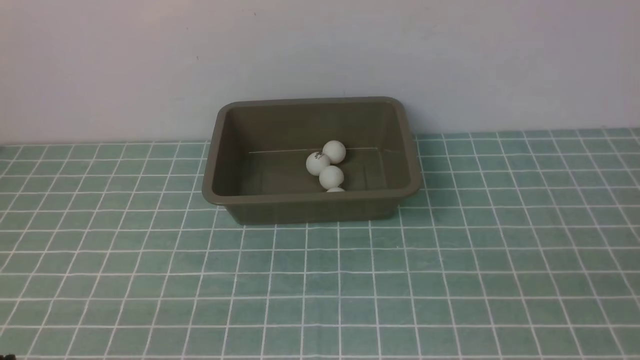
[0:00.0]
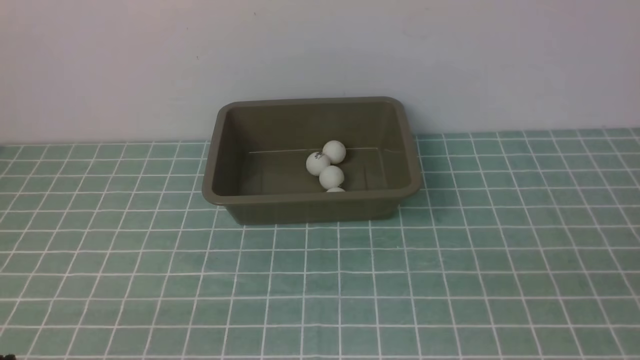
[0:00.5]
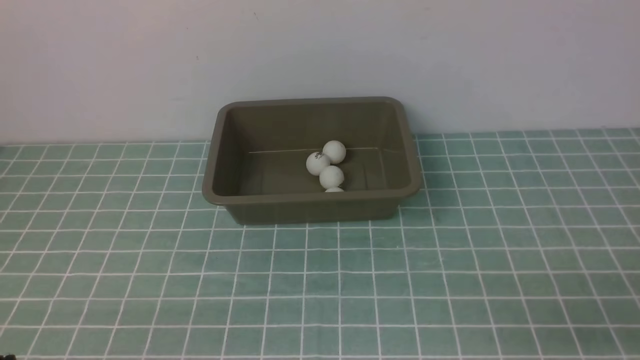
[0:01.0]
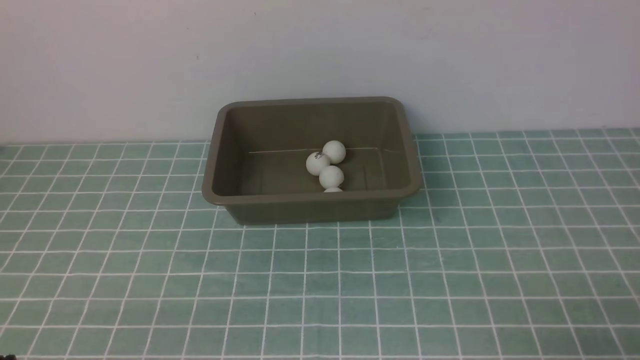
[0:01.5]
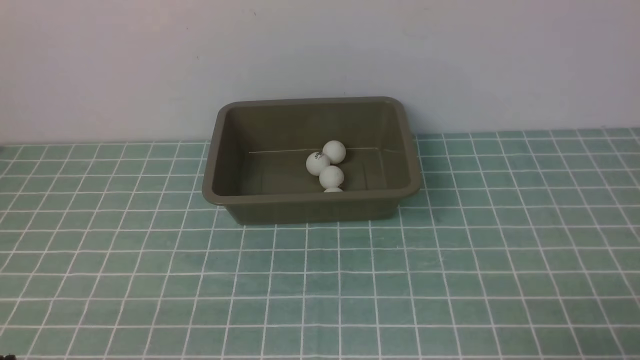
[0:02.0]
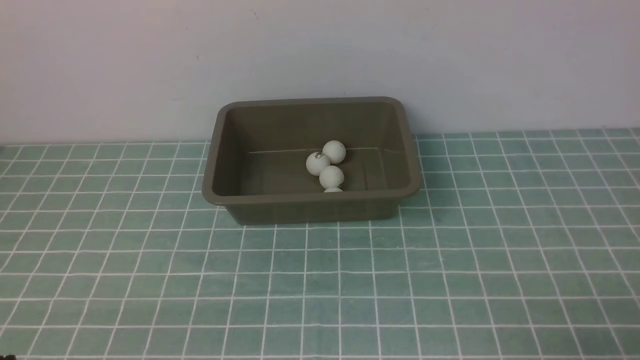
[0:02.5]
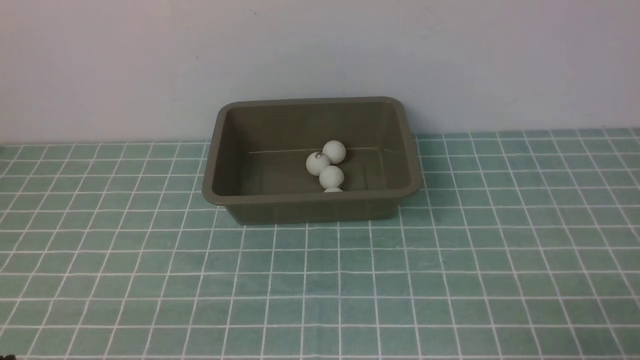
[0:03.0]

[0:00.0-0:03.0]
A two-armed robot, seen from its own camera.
0:01.5 to 0:03.0: Both grippers stay put.

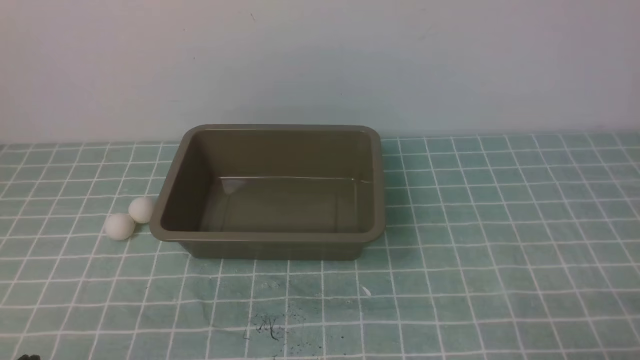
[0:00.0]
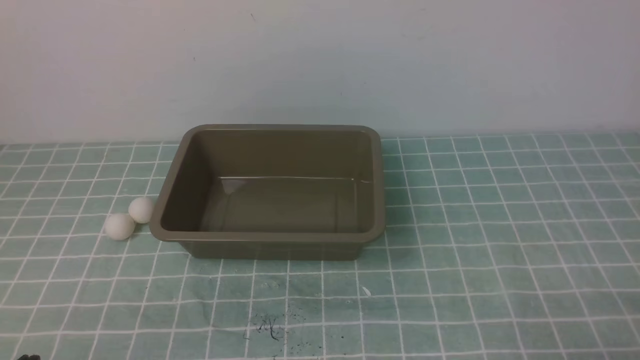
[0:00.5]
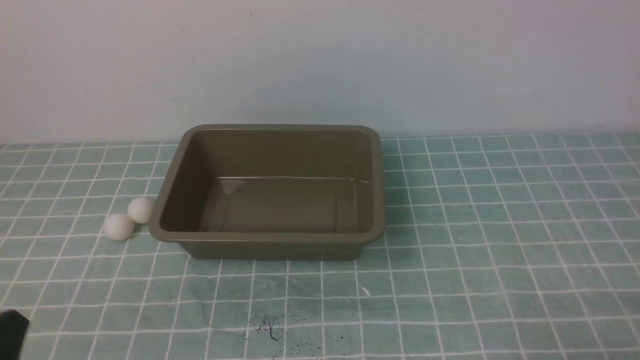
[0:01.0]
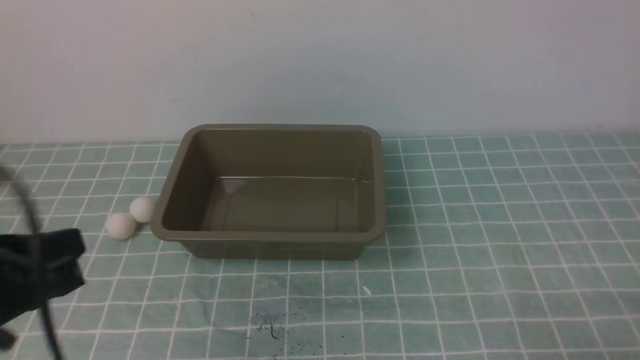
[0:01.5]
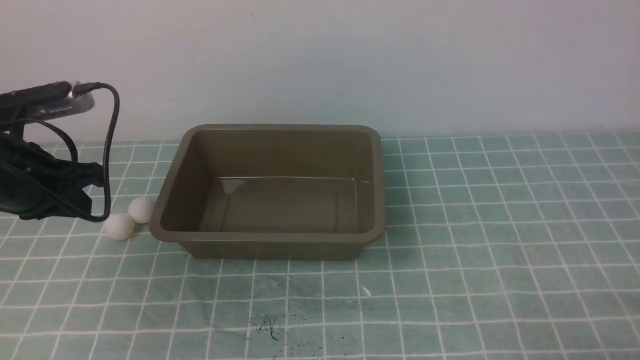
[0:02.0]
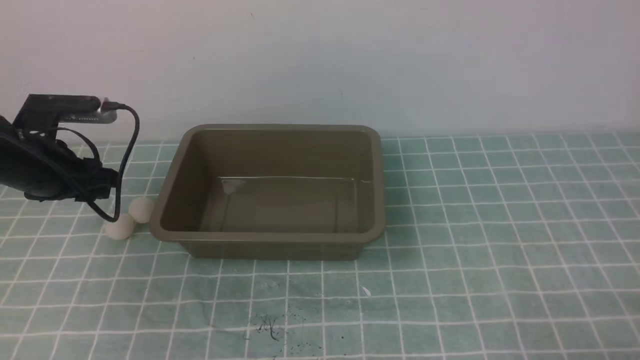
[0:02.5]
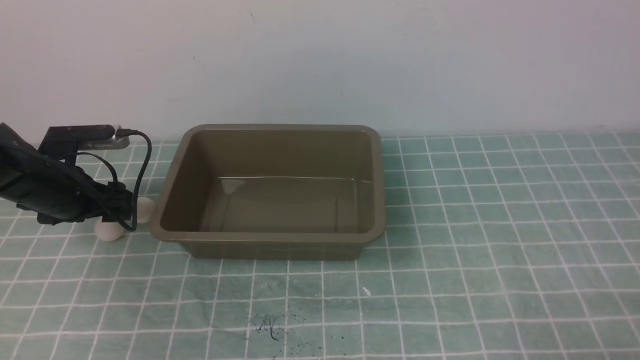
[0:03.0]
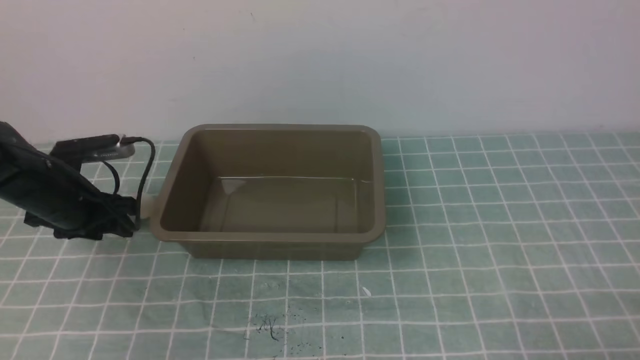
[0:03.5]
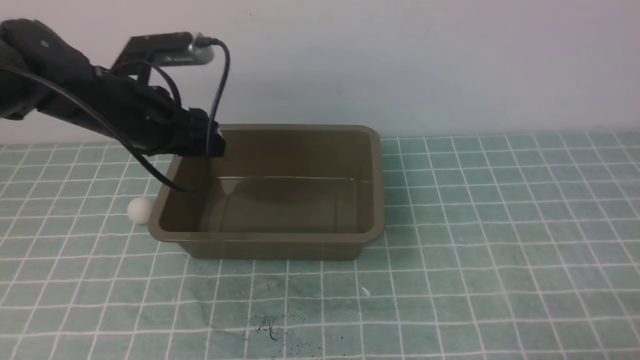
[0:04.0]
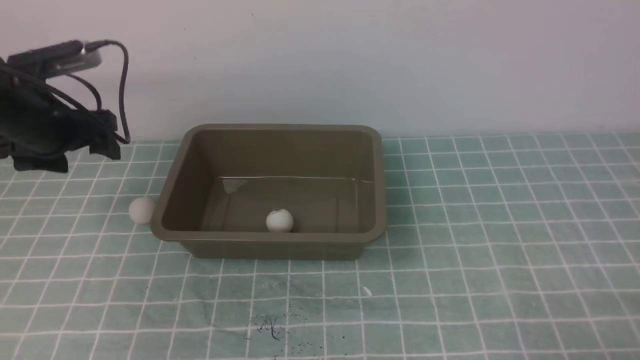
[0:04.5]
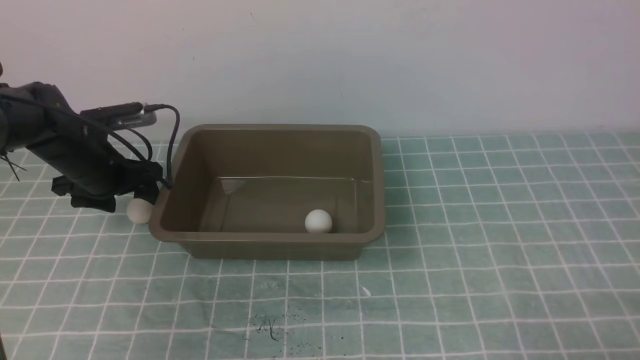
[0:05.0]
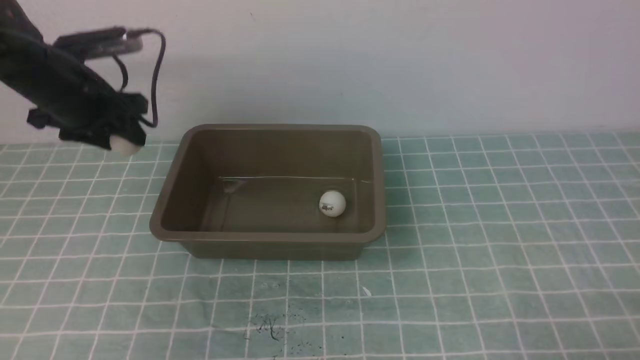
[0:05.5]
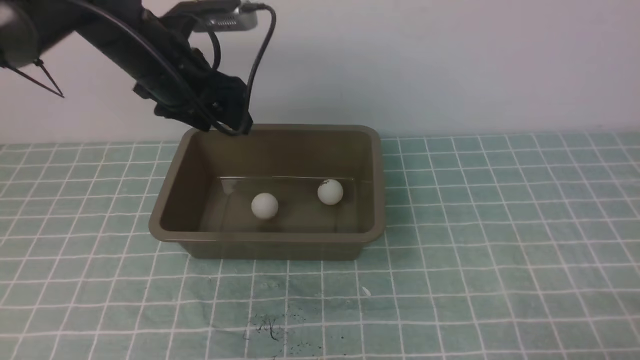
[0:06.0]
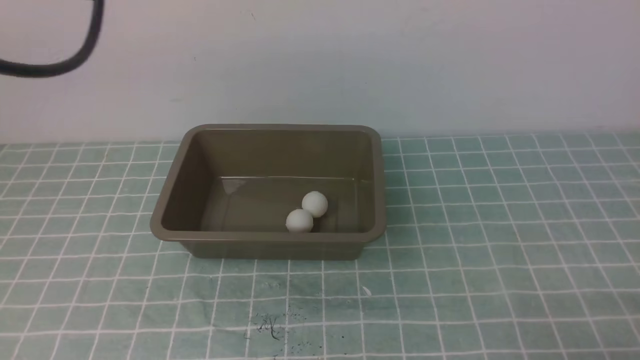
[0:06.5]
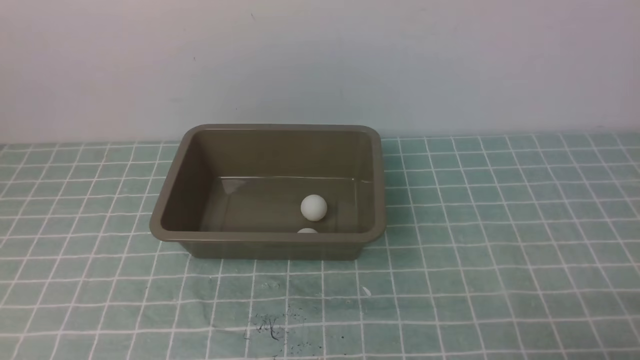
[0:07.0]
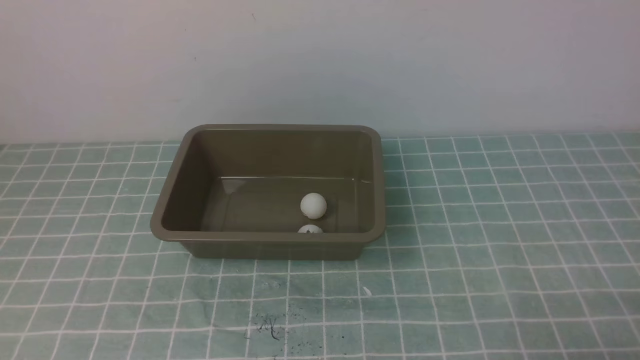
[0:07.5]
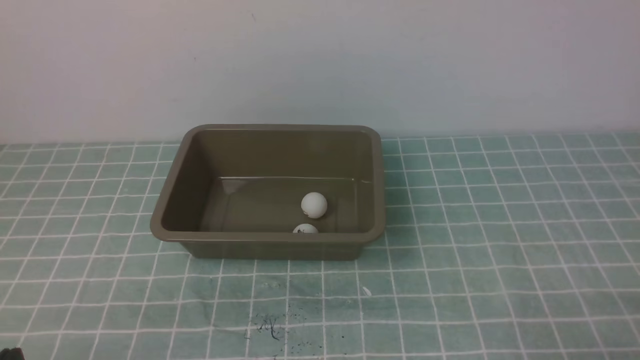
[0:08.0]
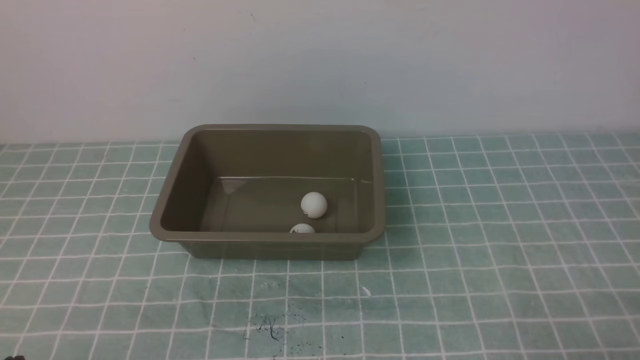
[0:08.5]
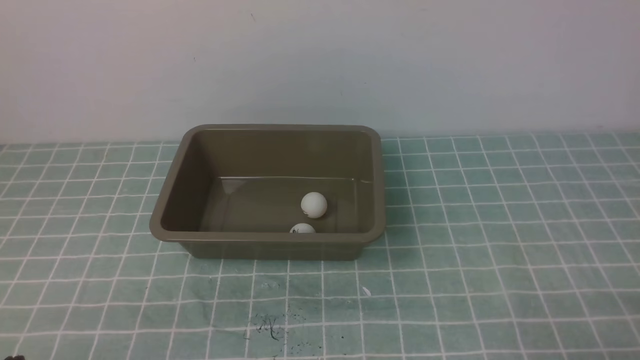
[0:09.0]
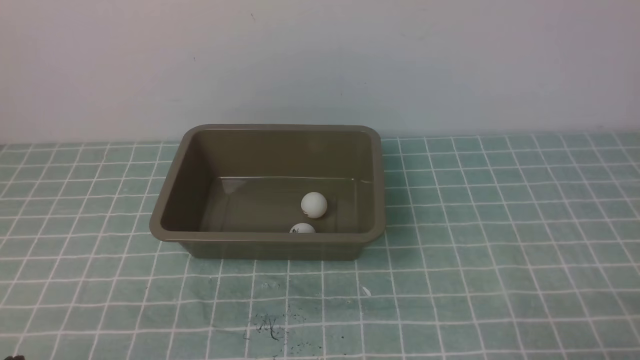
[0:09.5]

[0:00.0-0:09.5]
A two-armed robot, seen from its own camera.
Step, 0:00.0 to 0:03.5: use the left arm to clamp the table tennis ball closest to it.
Step, 0:04.5 to 0:05.0: use the left arm to clamp the table tennis ball closest to it.
Step, 0:05.5 to 0:06.0: use the left arm to put the table tennis ball into the box.
0:02.0 to 0:04.0: The left gripper travels forward by approximately 10 cm, travels downward and back again, some 10 cm each way, and opens up.
0:05.5 to 0:07.5: The left gripper shifts about 50 cm backward and upward, and closes.

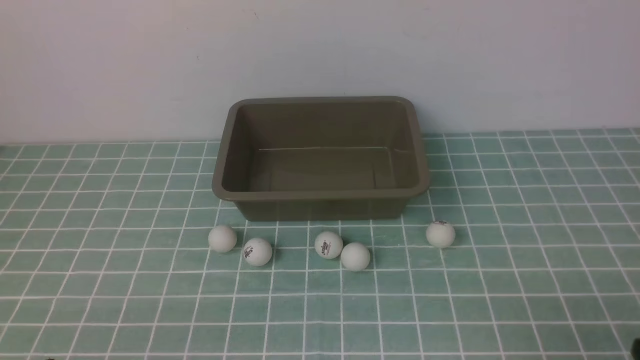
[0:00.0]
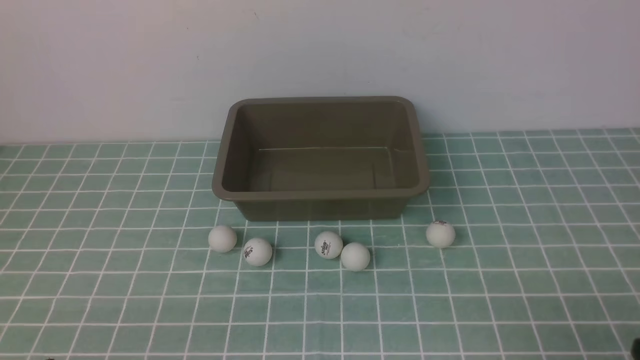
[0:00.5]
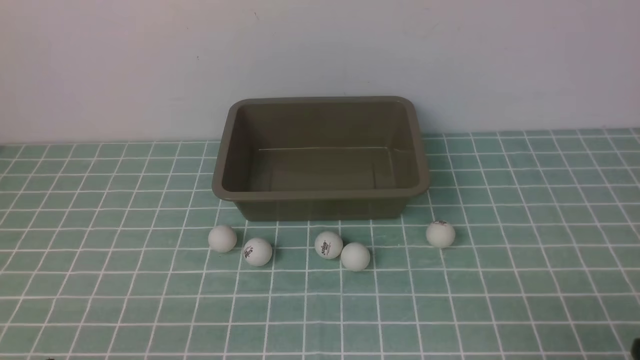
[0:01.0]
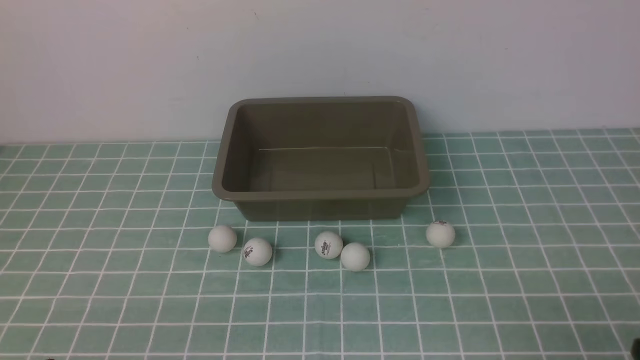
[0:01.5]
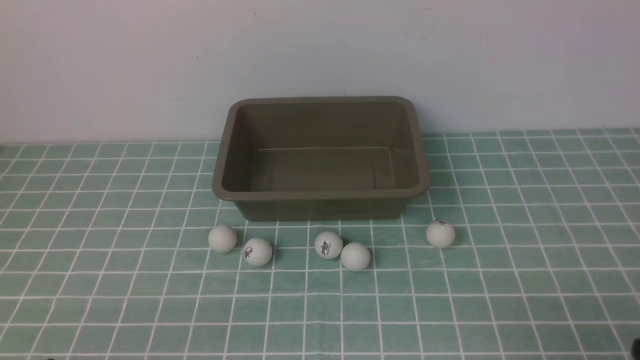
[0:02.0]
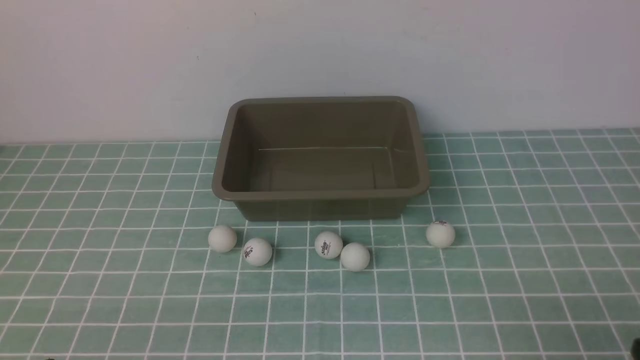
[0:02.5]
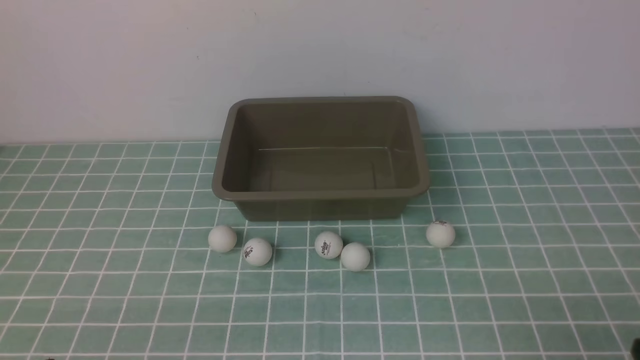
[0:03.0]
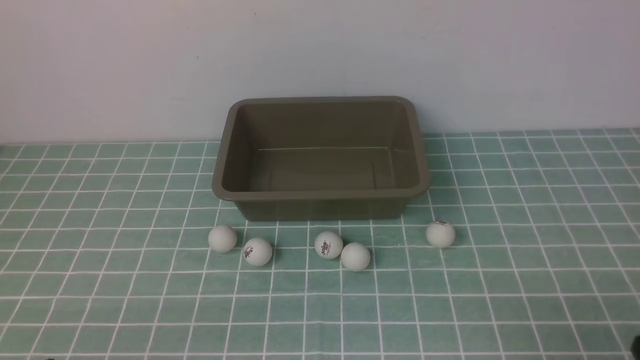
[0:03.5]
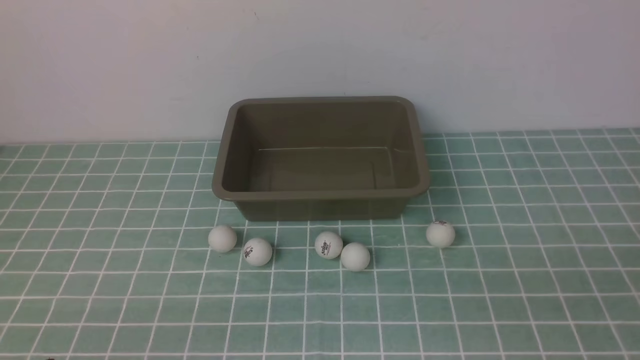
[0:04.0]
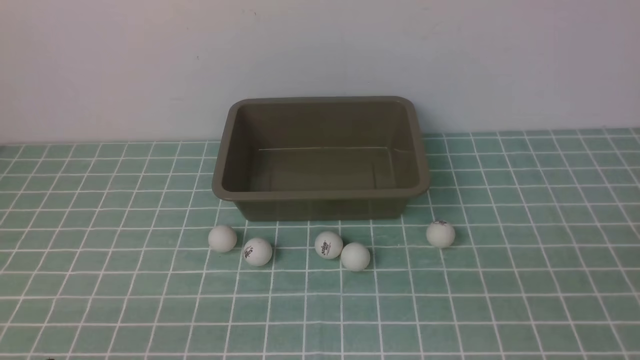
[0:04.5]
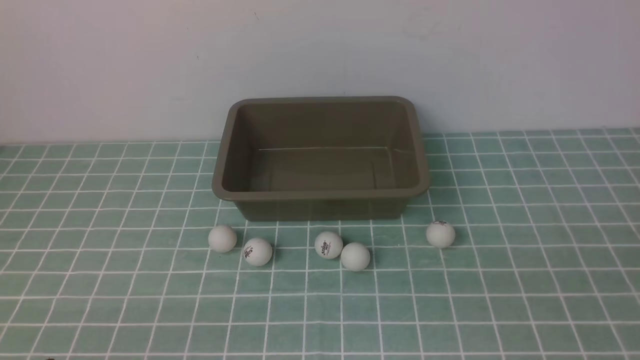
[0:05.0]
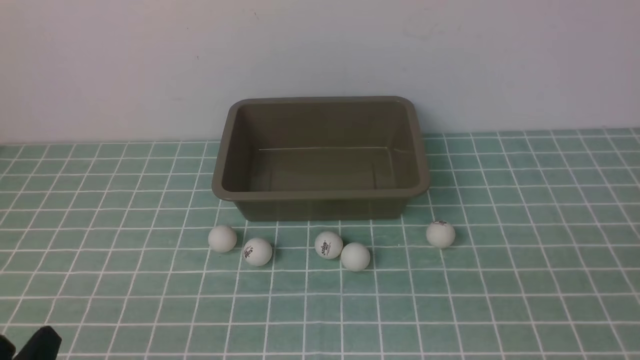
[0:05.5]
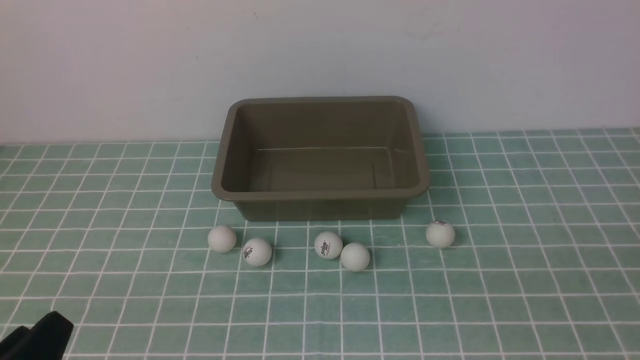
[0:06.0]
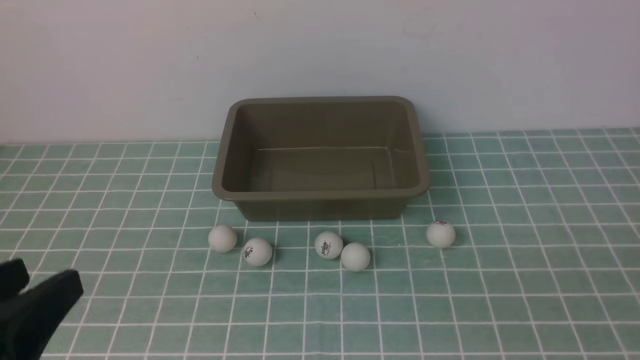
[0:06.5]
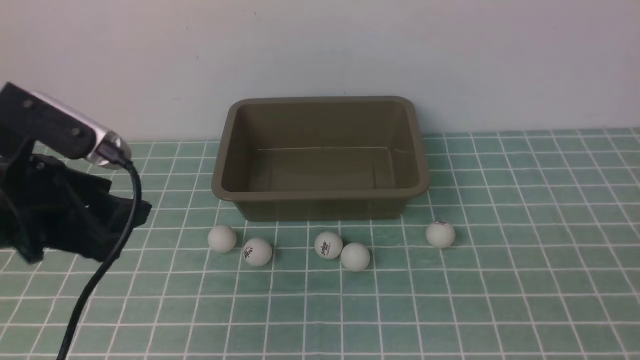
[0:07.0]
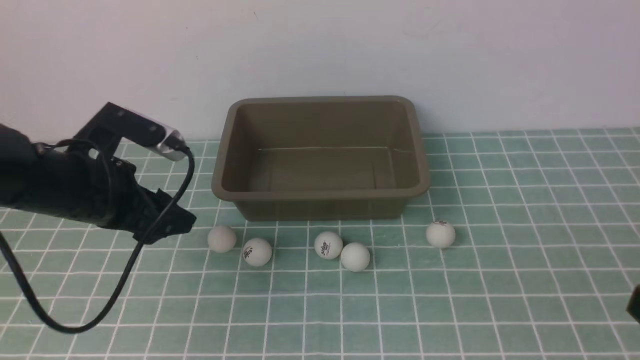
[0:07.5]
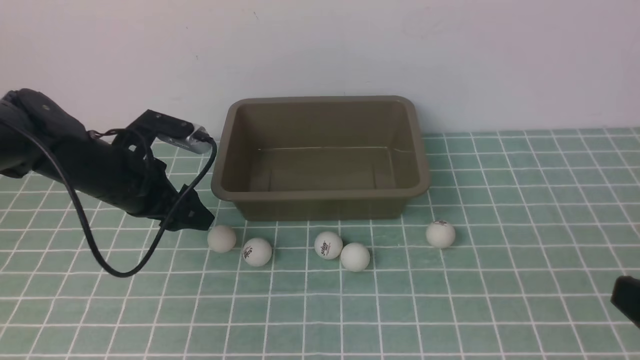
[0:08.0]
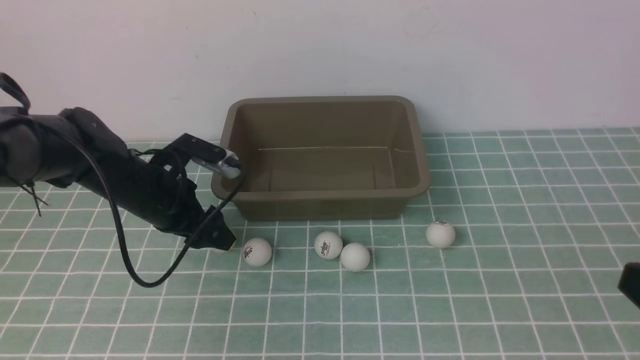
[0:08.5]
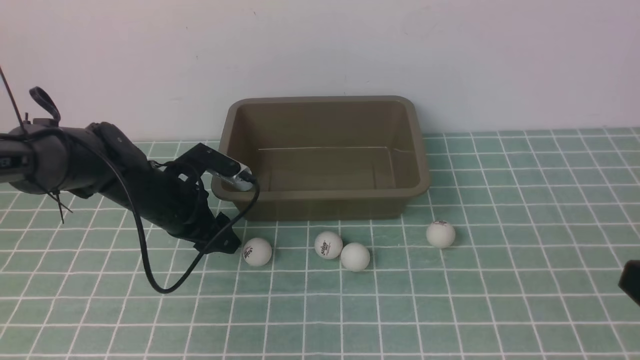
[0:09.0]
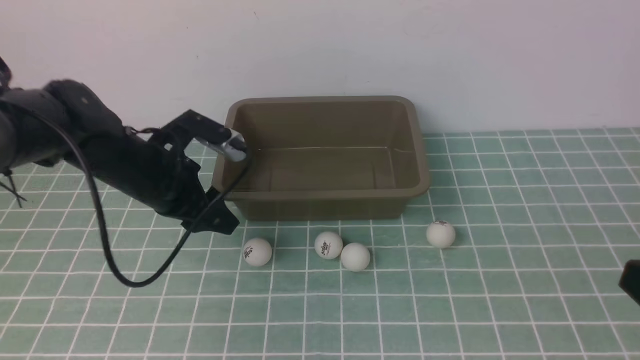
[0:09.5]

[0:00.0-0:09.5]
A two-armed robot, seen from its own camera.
Step, 0:00.0 to 0:09.5: use the left arm to clamp the table tennis ball closest to it.
0:00.0 to 0:02.0: The two grippers keep their place.
0:05.5 to 0:07.5: The left gripper goes roughly 30 cm forward; the right gripper travels forward by about 5 cm.
0:07.5 to 0:09.5: The left gripper ends up about 10 cm from where it was, and closes its fingers.
